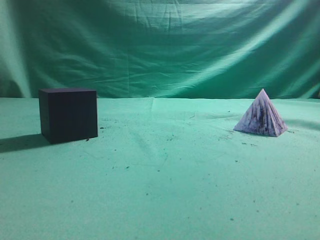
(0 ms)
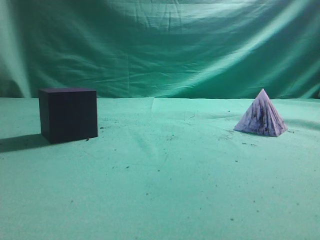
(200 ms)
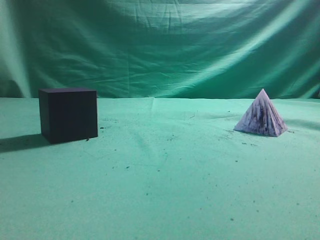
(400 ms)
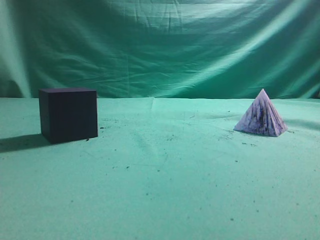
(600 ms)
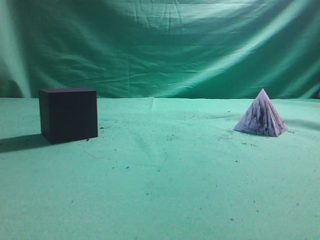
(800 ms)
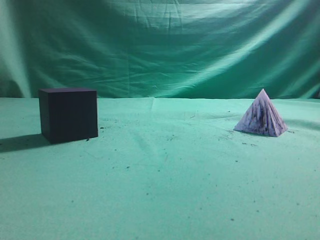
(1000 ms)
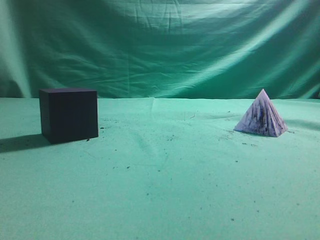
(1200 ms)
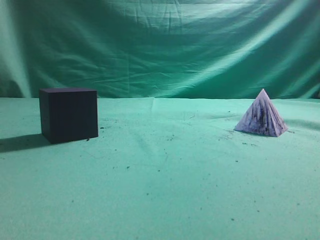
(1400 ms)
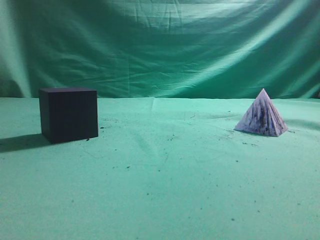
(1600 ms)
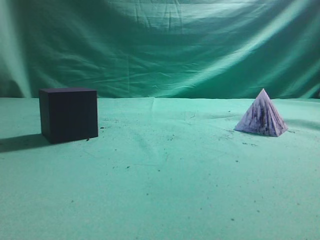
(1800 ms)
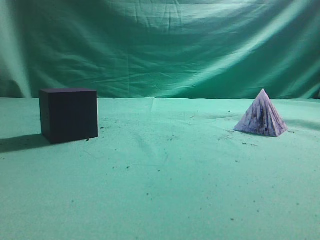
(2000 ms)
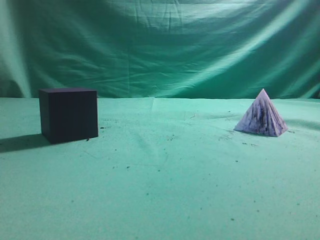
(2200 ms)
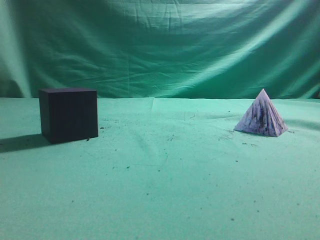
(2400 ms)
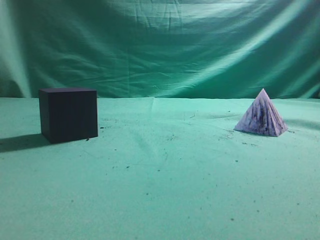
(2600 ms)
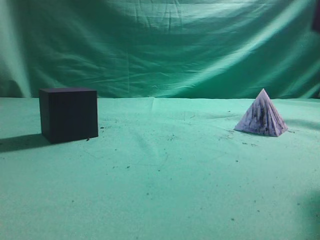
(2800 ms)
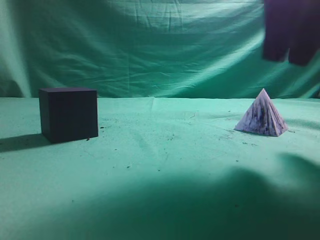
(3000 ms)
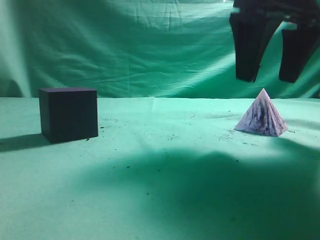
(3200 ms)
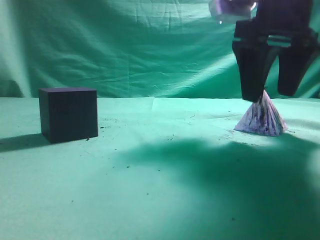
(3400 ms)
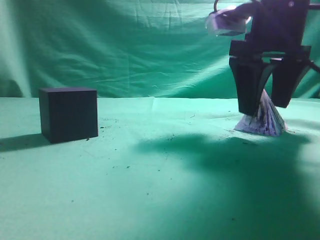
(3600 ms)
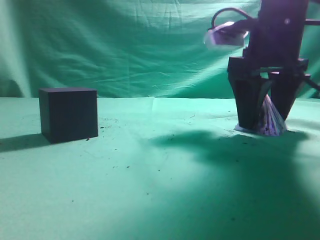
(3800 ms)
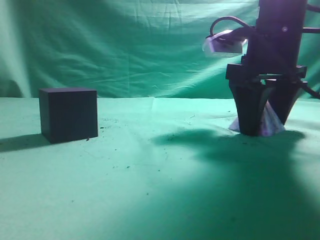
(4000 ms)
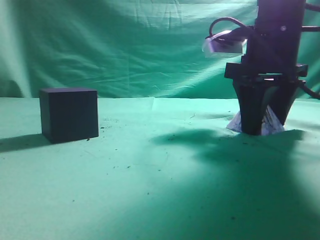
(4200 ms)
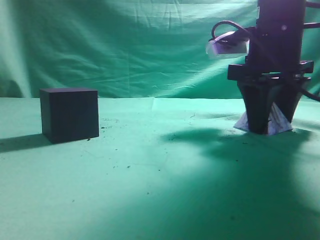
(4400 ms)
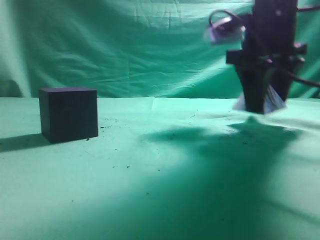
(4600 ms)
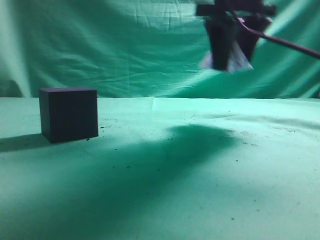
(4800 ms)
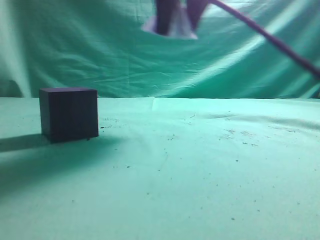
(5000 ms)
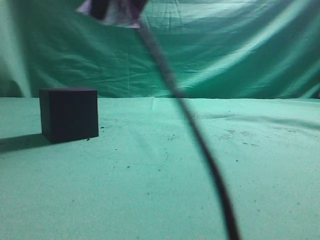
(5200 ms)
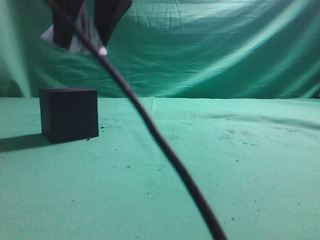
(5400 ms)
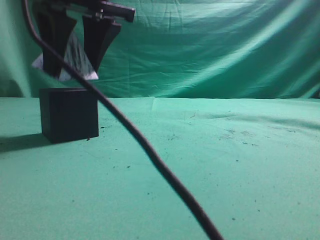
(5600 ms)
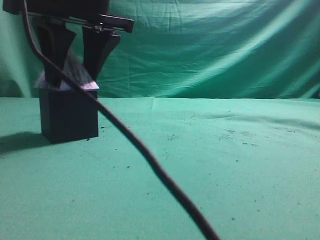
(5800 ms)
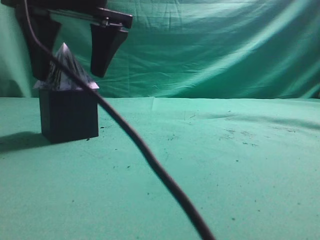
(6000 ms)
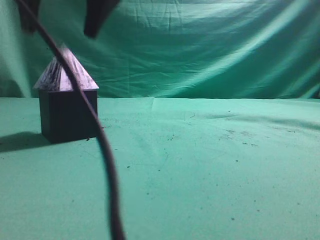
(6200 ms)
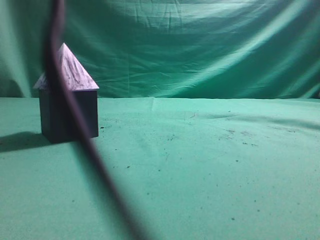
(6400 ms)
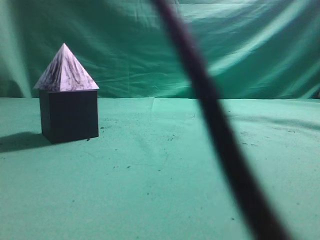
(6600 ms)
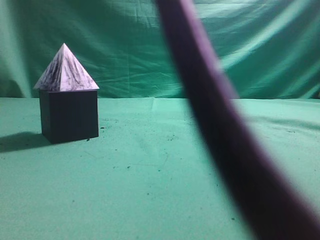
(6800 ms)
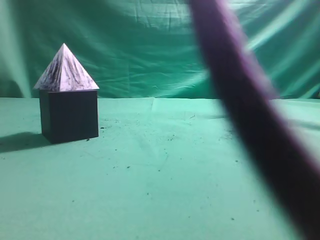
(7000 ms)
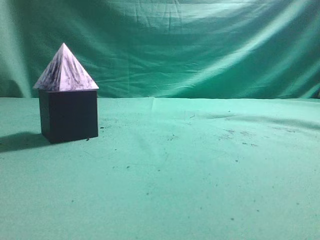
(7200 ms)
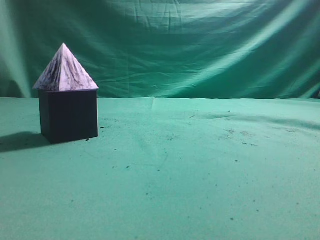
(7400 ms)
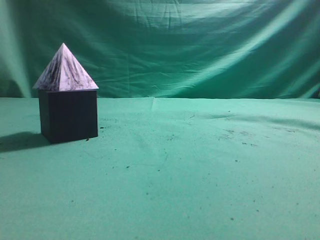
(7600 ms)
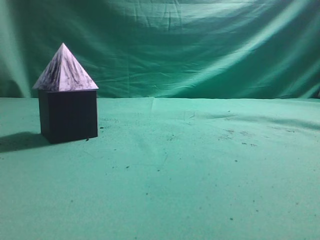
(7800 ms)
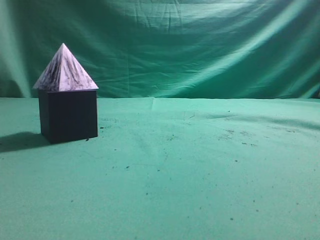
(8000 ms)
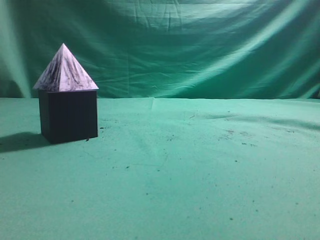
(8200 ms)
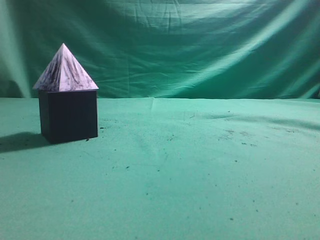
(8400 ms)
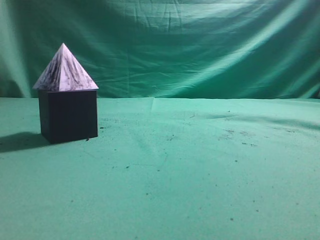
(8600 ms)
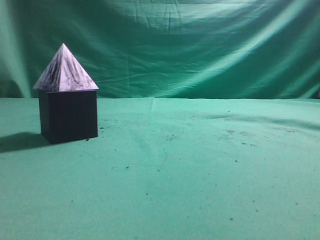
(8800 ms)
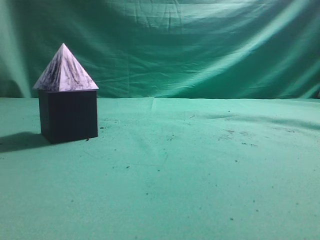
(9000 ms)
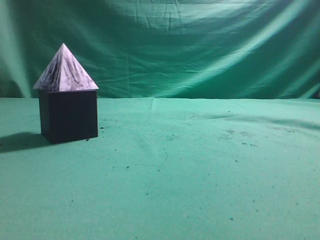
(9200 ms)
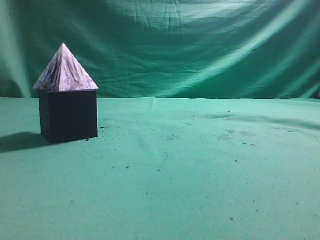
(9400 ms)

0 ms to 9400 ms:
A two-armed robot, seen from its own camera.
Task of the whole recording: pick up the square pyramid from the table and place it on the cube block.
Step, 0 ms to 4600 ms: Grasp the triangular block.
Step, 4800 ms to 6200 ms: Place the block onto the cube-shaped block.
1600 ms to 3200 ms: The right gripper shifts roughly 30 cm forward and to the left, and opens up.
3200 ms to 4800 ms: The right gripper heads forward, covering some 5 cm, reaches about 5 cm downward, then returns, and closes up.
4800 ms to 6200 ms: The right gripper travels to the left by approximately 20 cm, and opens up.
6200 ms to 7800 ms: The right gripper heads to the right, backward and upward, covering approximately 40 cm, and closes.
